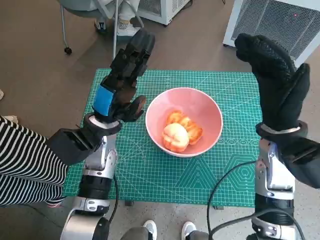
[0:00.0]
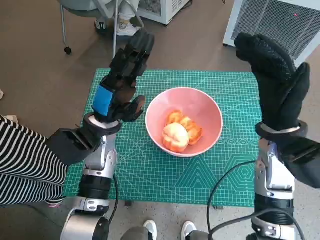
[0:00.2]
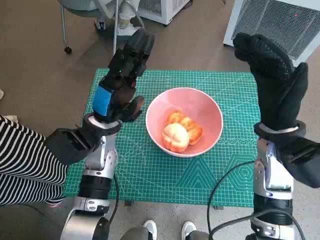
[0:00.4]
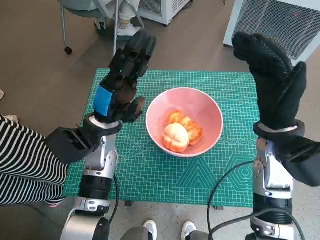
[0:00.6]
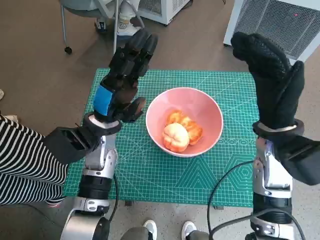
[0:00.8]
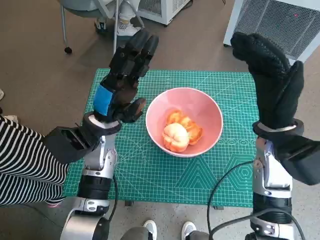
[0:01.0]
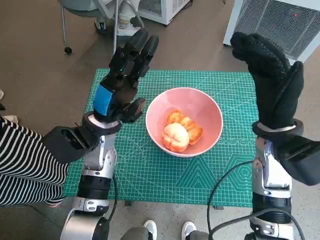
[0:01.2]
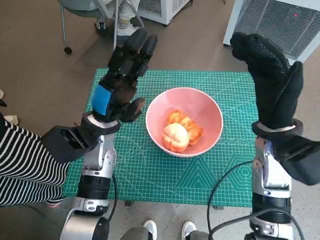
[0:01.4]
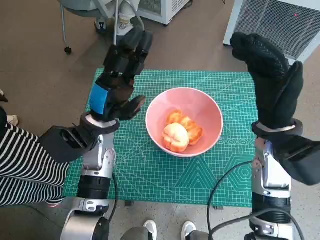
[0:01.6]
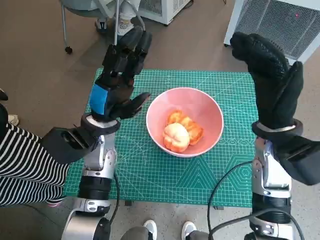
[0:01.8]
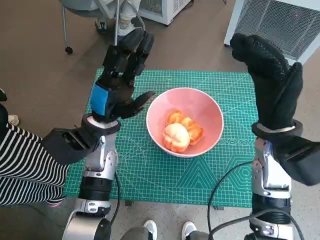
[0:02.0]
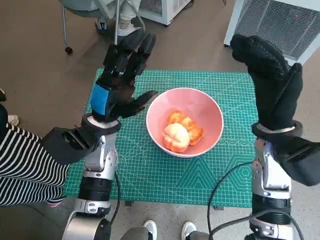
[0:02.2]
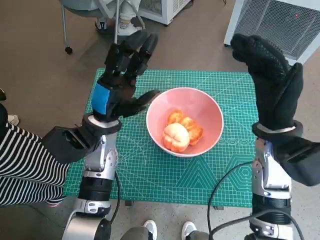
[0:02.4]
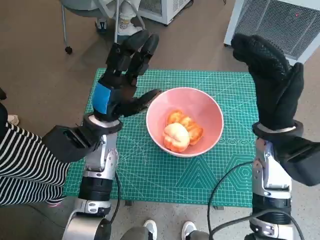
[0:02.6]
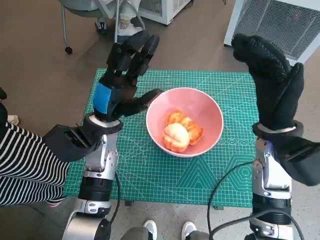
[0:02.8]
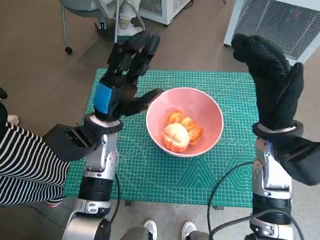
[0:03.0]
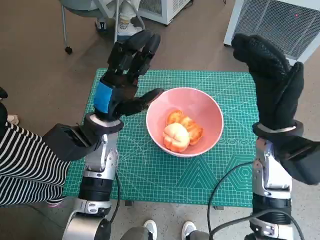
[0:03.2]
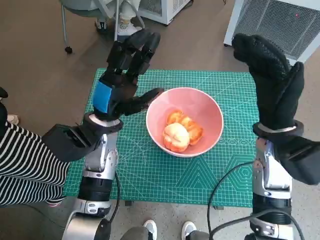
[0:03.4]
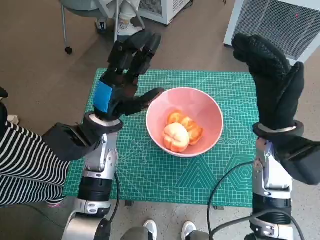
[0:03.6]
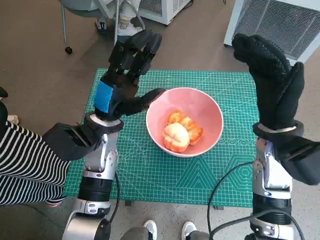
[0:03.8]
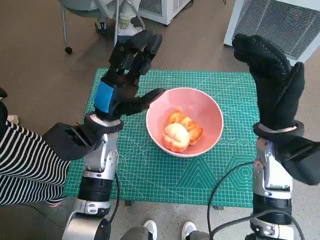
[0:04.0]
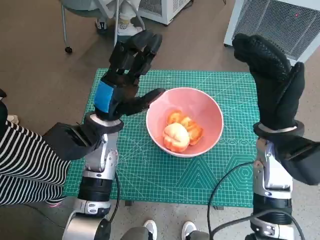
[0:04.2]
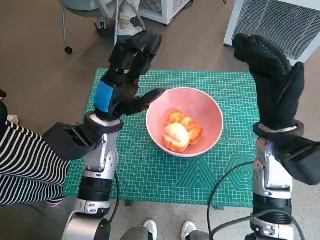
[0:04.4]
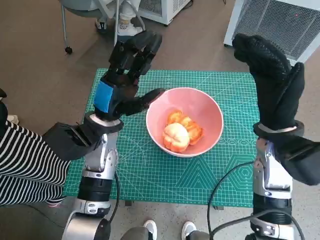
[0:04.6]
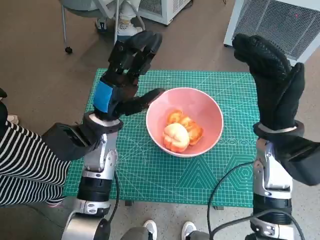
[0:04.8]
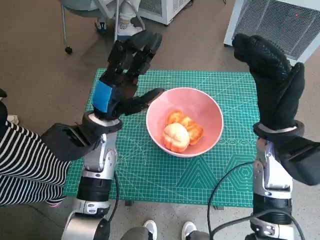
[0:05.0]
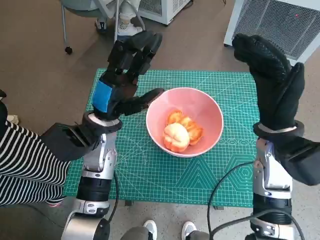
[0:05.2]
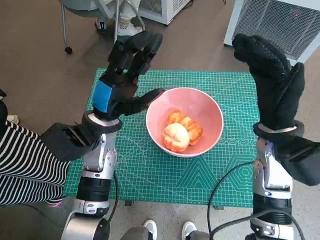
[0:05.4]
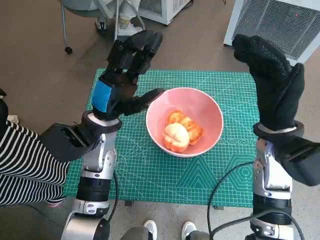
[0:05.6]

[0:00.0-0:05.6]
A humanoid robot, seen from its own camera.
Task of the whole recording: Push the bowl into the center of the table and put the bread into the bowl.
0:00.0 to 0:04.2: Both hands stay about where they are.
0:04.2 to 0:05.6: The two hands keep their place.

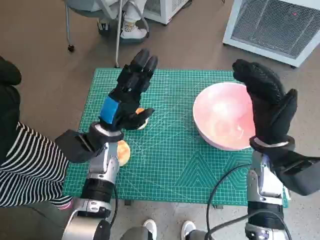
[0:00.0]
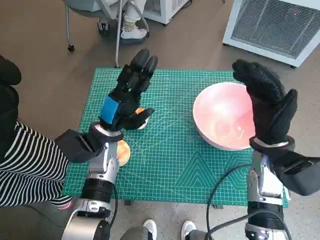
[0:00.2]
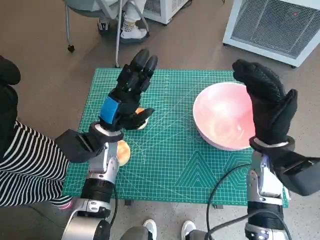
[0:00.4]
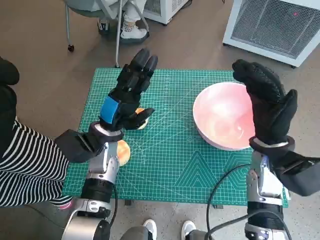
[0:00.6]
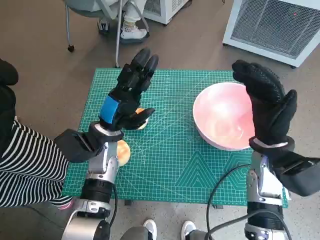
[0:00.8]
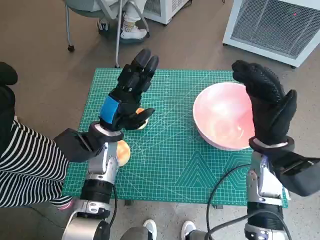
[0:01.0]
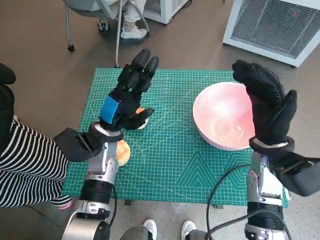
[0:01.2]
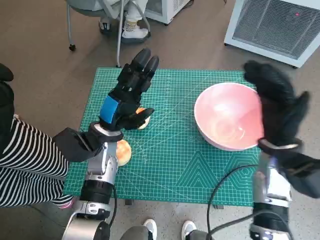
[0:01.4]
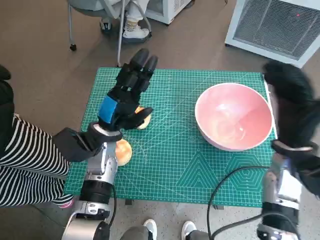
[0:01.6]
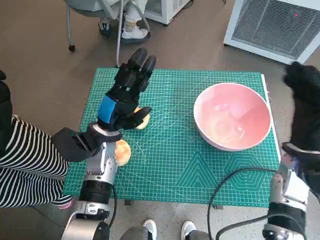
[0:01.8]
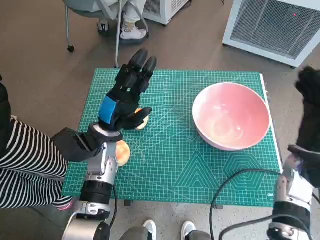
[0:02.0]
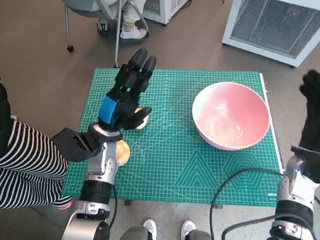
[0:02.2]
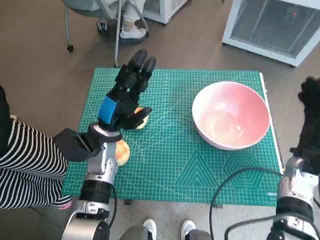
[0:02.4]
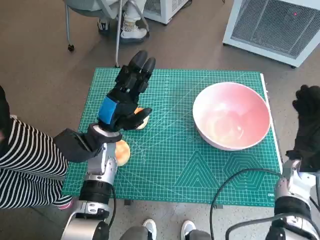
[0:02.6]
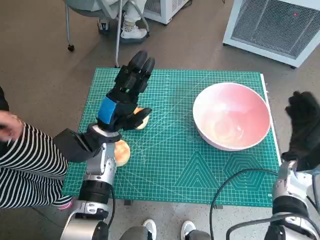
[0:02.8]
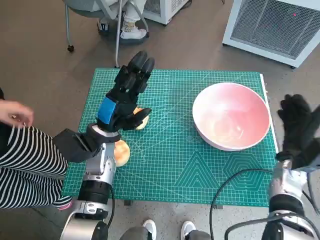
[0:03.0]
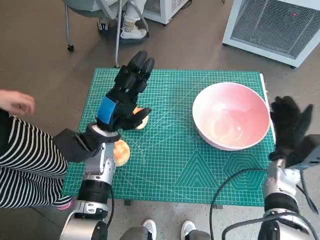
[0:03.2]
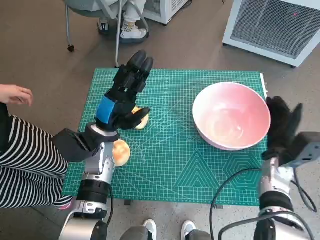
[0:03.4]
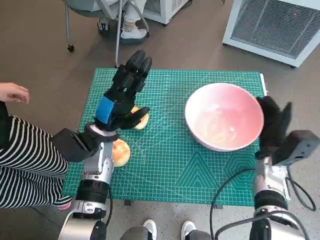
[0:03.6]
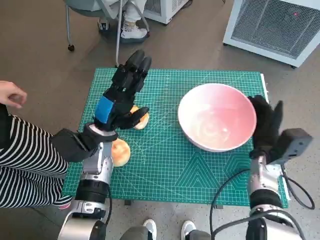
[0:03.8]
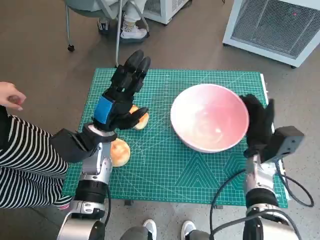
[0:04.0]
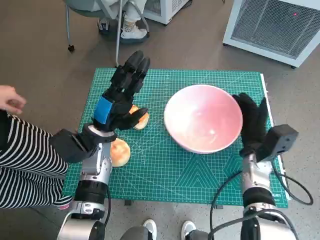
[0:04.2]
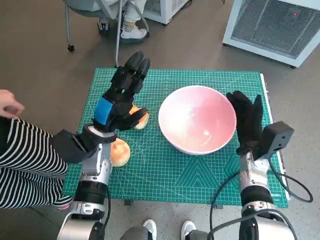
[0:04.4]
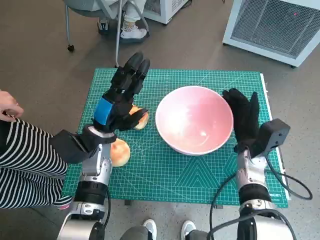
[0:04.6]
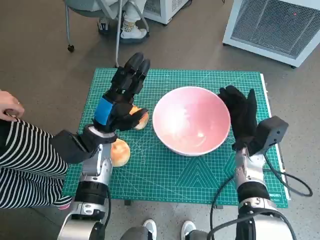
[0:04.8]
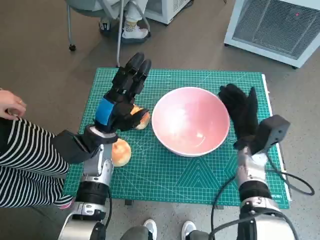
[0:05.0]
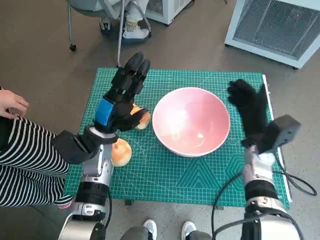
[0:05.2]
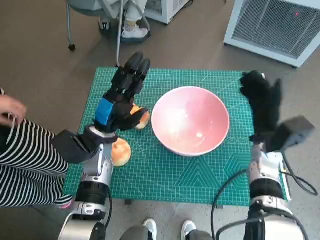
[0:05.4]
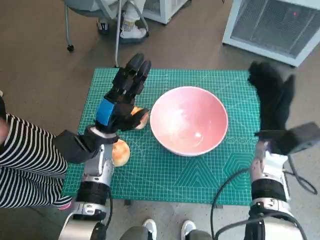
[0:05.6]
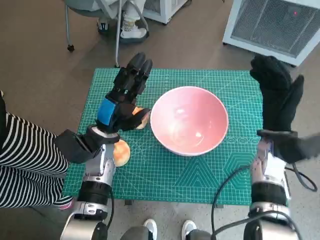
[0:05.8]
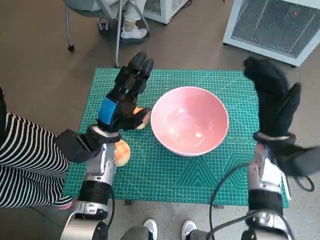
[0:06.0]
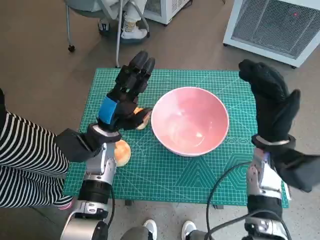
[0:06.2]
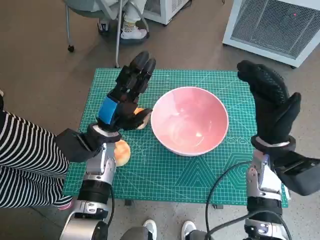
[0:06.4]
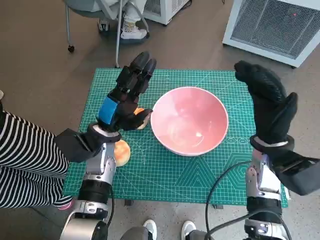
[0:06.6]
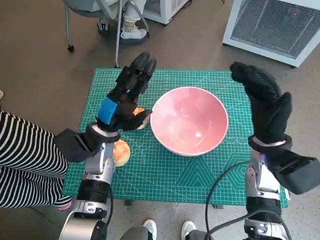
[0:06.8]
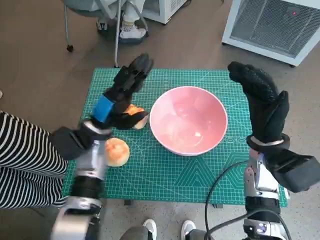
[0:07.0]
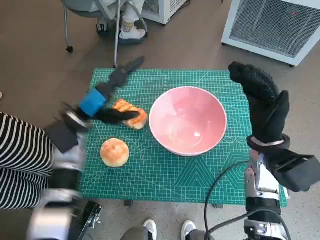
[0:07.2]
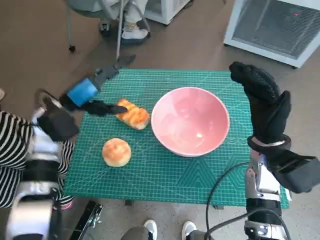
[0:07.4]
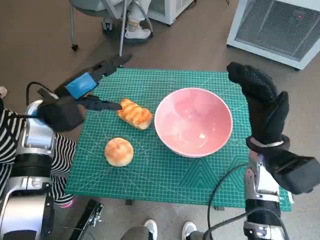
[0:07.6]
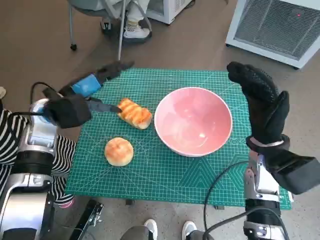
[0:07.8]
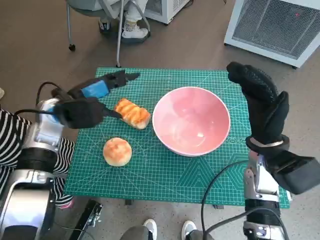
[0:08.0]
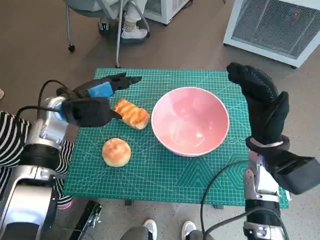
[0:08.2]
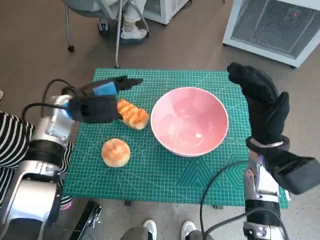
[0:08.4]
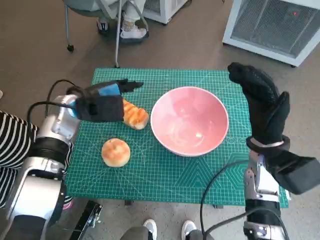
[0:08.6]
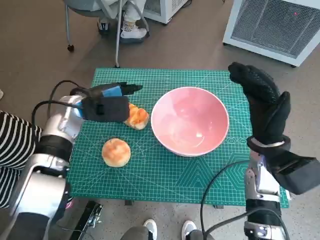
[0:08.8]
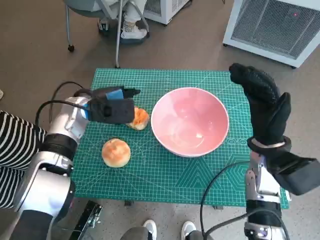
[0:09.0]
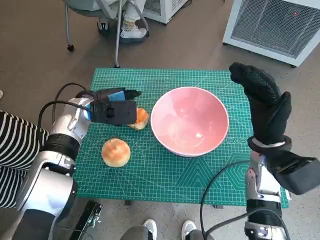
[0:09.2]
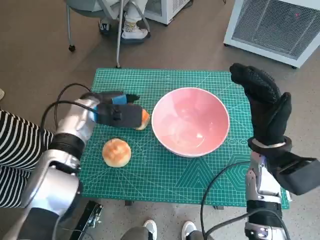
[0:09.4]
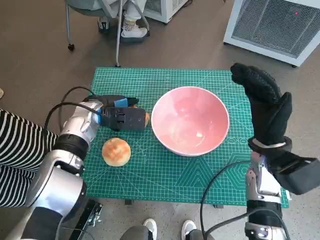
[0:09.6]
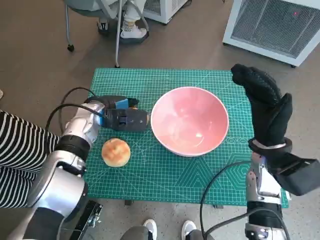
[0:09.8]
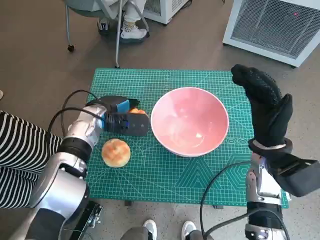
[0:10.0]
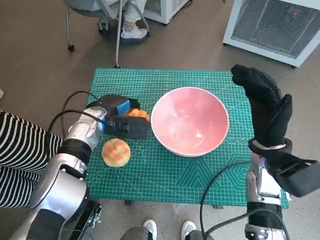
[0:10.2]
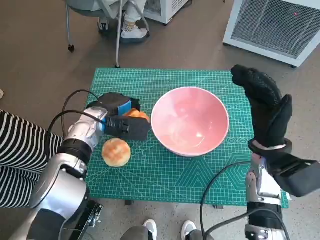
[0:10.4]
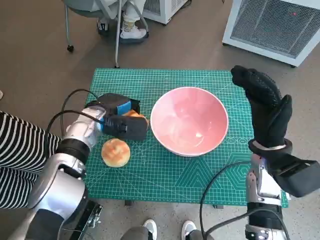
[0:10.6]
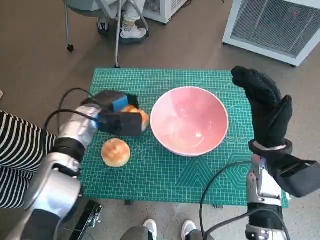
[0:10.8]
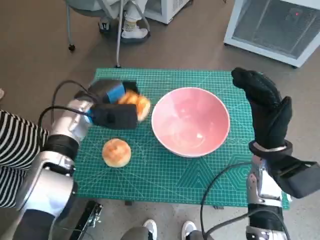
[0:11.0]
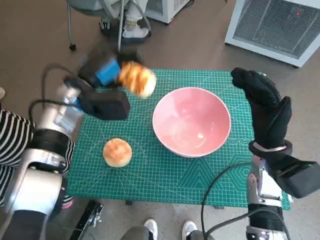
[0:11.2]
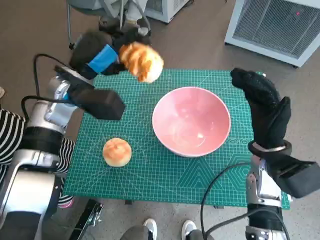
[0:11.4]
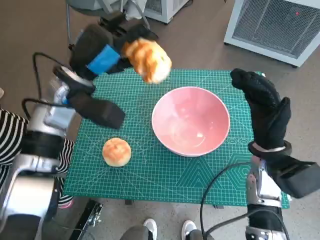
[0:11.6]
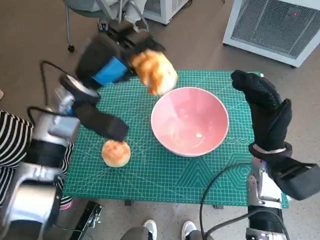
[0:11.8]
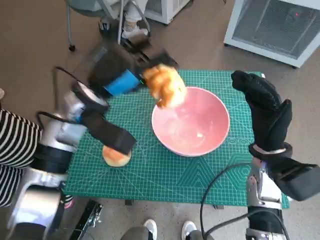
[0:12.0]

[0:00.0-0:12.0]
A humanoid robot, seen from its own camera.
Task of the whole recording: Push the bowl into the center of the table and put the bread into the bowl.
Step, 0:00.0 to 0:05.2: Move the pink bowl to the center of table with right hand.
Step, 0:05.4 to 0:10.2: Grasp the long bread with left hand.
0:01.6 to 0:03.0: The right hand travels downward and to the right by approximately 10 cm.
0:03.0 to 0:04.4: The right hand is displaced to the left by about 10 cm.
0:04.4 to 0:06.0: The right hand goes approximately 10 cm upward.
0:06.0 to 0:07.6: The left hand shifts some 10 cm to the left and upward.
0:07.6 to 0:09.0: The left hand shifts by about 5 cm.
0:09.0 to 0:10.4: The hands move only a little.
0:10.4 to 0:12.0: The left hand heads upward, covering approximately 10 cm.

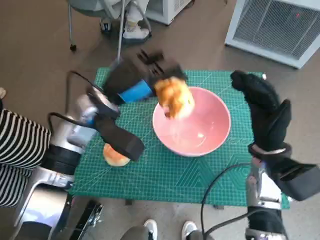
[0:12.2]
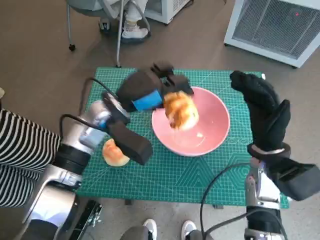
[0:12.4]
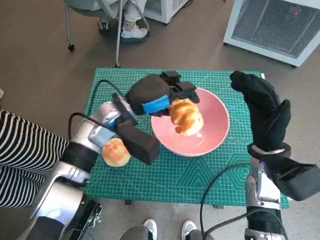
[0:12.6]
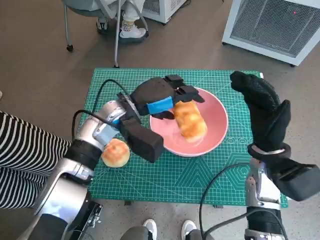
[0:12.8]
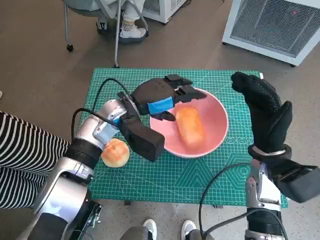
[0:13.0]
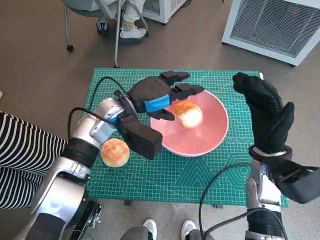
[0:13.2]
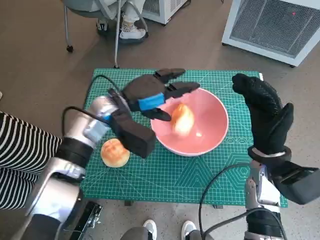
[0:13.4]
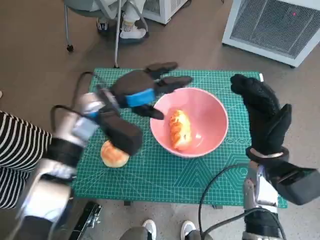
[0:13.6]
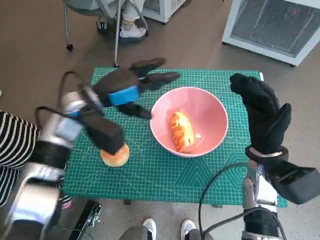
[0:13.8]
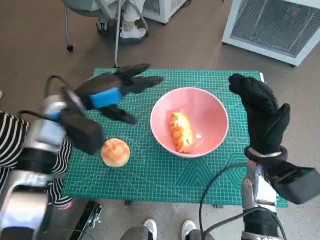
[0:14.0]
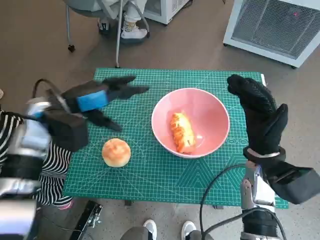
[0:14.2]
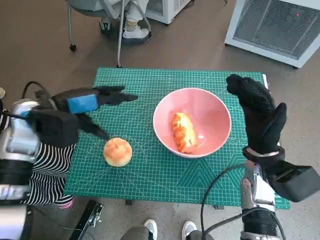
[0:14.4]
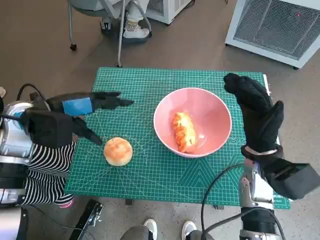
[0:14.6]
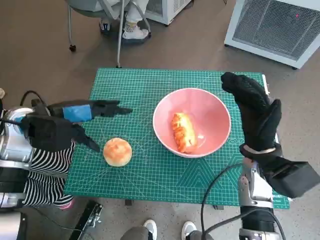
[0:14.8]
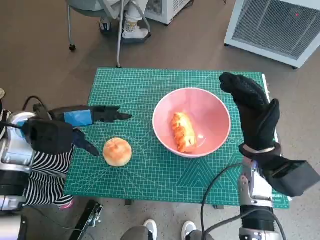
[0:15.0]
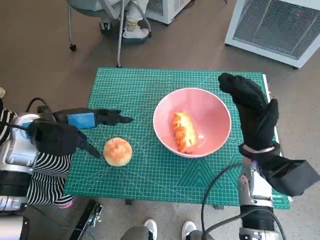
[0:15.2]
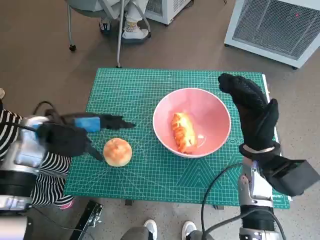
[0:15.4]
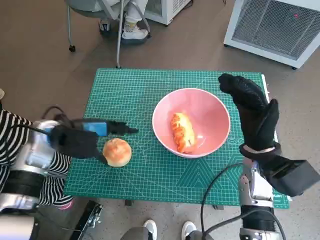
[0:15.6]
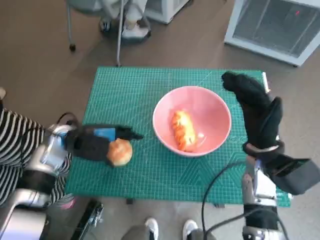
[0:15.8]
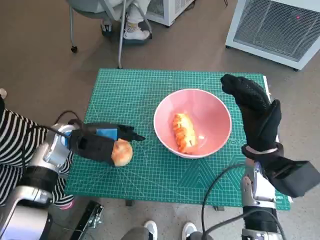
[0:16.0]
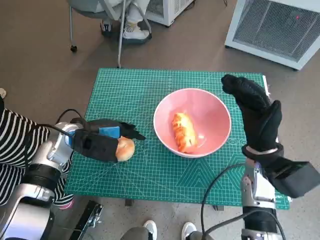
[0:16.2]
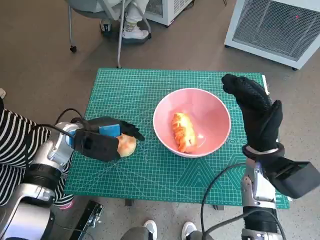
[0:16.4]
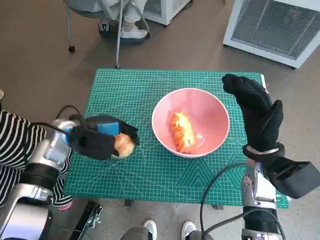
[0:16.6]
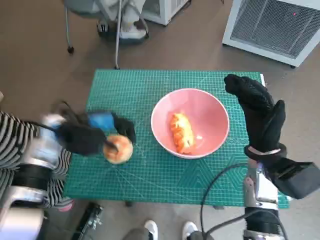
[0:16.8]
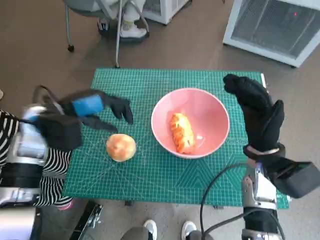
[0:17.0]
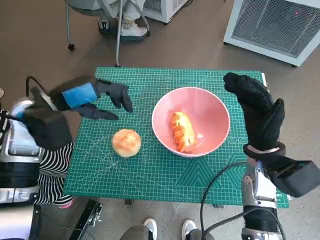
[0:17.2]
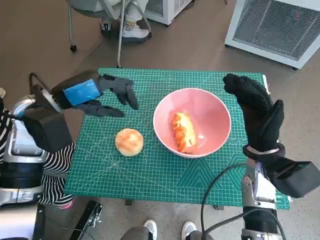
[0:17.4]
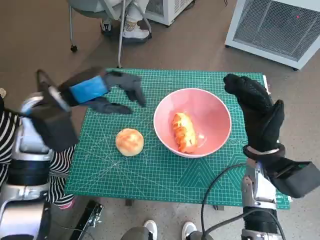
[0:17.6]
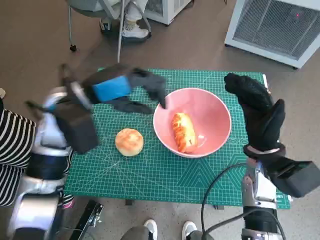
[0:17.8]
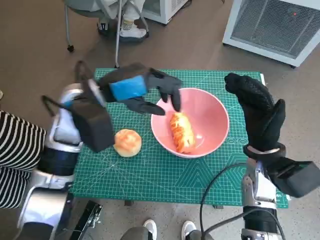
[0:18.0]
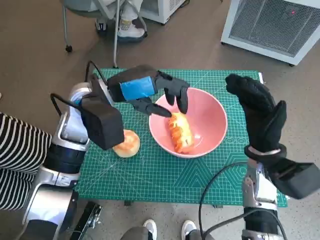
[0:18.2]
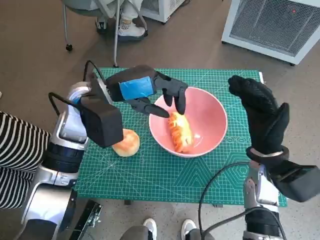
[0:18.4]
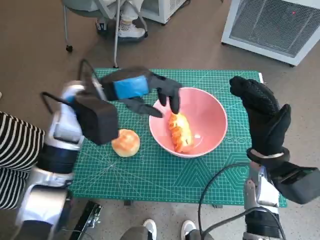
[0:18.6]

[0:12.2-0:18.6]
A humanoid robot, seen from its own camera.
Task of the whole recording: Push the bowl into the center of the table and put the bread into the bowl.
Step, 0:13.8 to 0:16.4: Grasp the round bread with left hand.
0:13.8 to 0:15.4: The left hand goes approximately 10 cm to the left.
0:17.0 to 0:18.6: The left hand is displaced to the right by about 10 cm.
